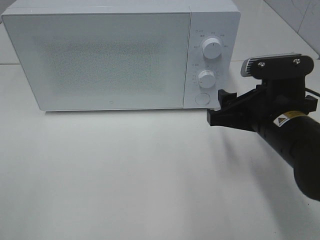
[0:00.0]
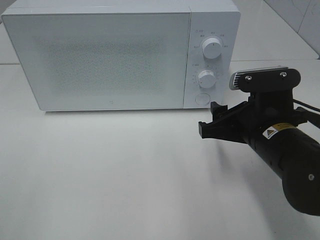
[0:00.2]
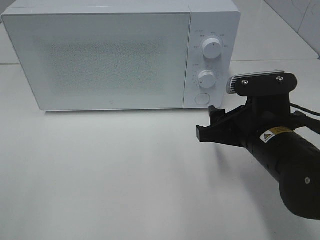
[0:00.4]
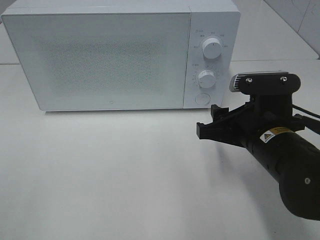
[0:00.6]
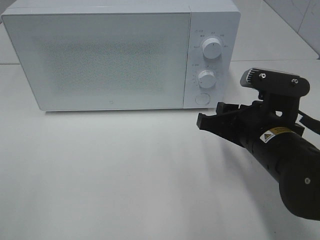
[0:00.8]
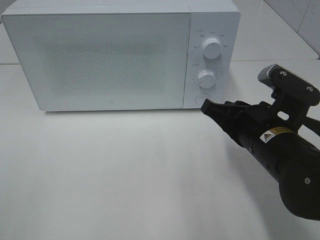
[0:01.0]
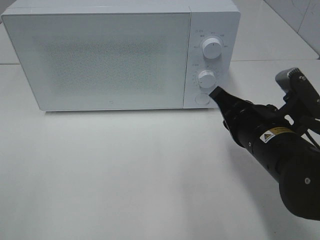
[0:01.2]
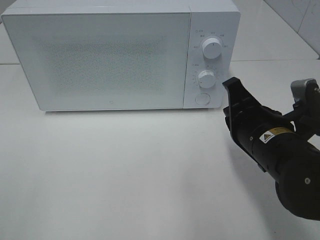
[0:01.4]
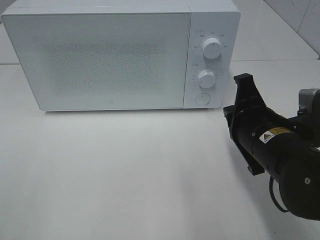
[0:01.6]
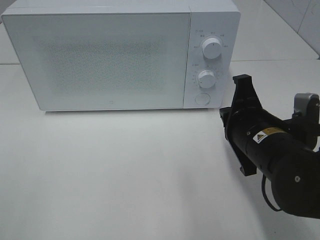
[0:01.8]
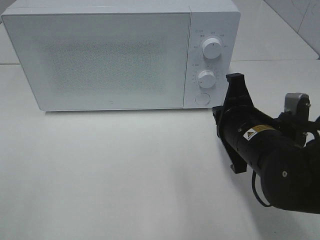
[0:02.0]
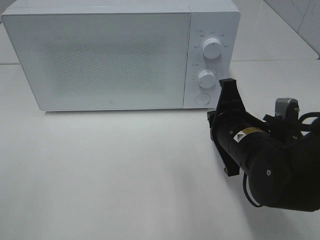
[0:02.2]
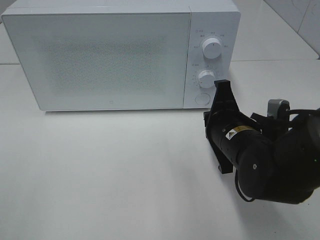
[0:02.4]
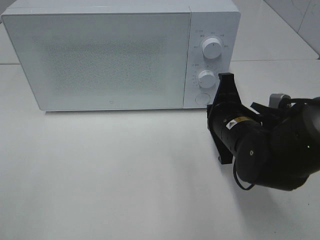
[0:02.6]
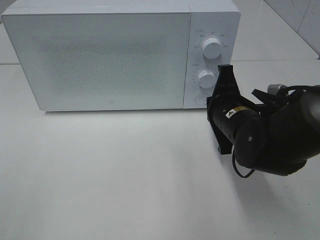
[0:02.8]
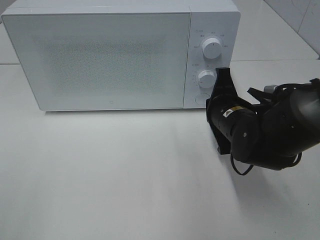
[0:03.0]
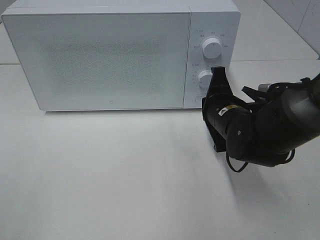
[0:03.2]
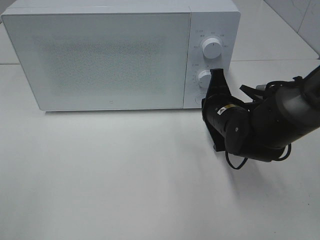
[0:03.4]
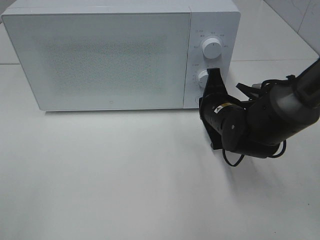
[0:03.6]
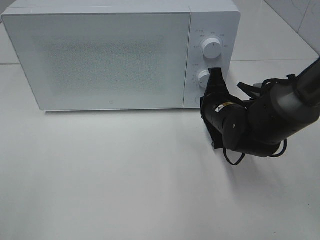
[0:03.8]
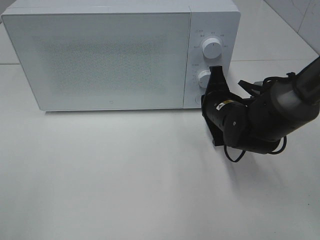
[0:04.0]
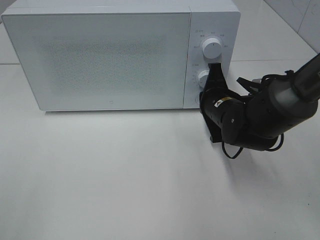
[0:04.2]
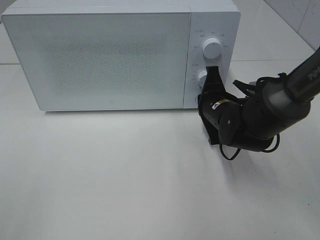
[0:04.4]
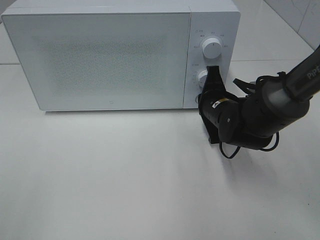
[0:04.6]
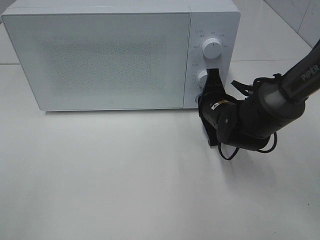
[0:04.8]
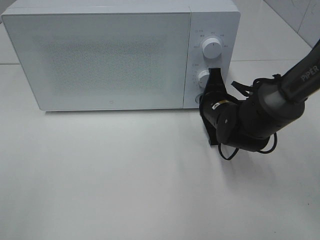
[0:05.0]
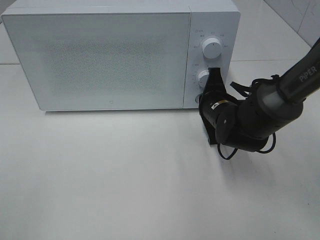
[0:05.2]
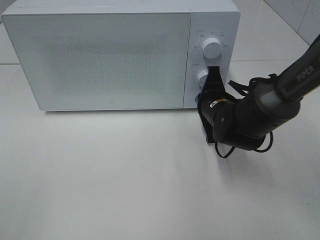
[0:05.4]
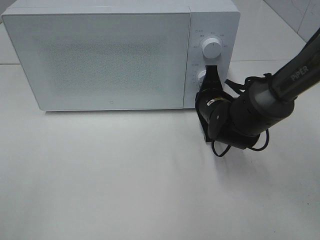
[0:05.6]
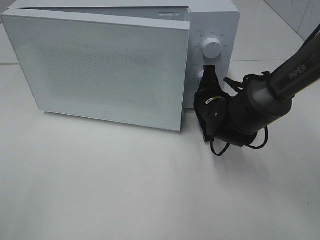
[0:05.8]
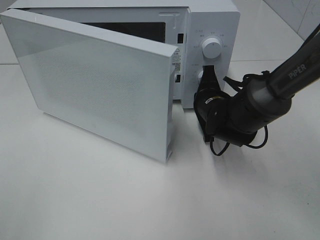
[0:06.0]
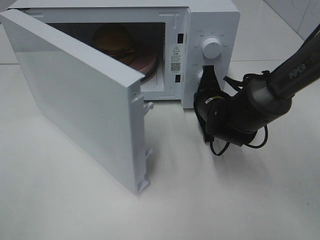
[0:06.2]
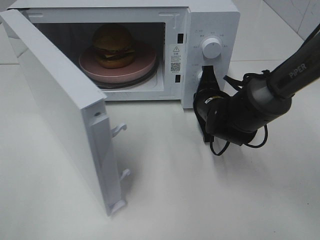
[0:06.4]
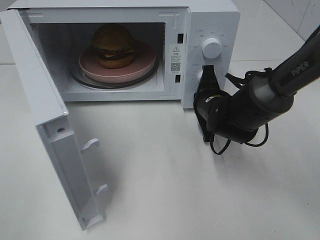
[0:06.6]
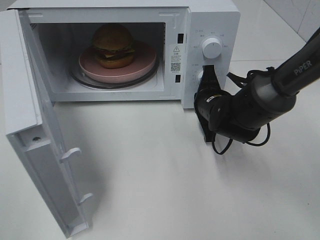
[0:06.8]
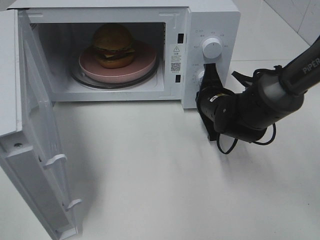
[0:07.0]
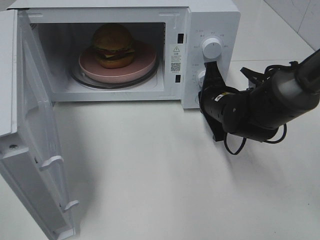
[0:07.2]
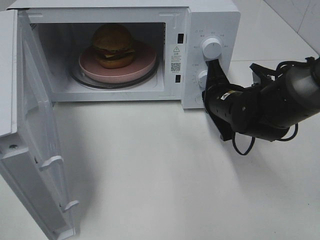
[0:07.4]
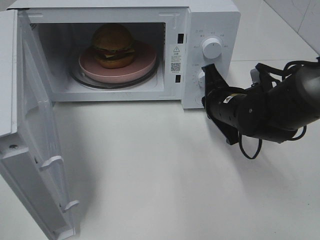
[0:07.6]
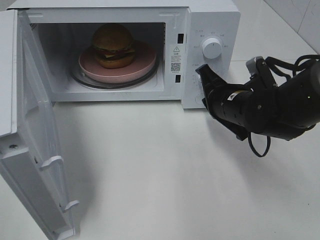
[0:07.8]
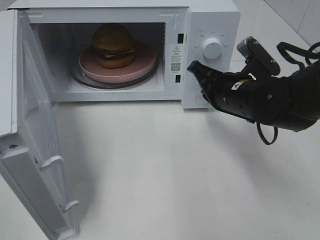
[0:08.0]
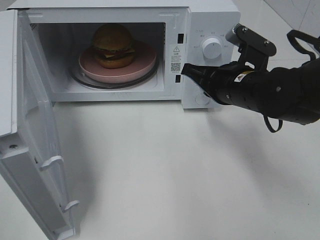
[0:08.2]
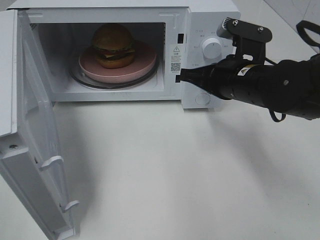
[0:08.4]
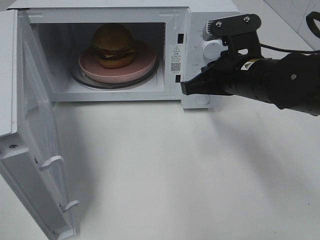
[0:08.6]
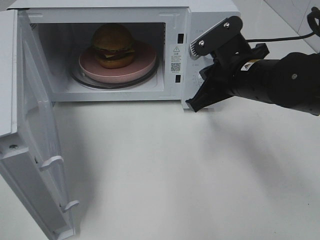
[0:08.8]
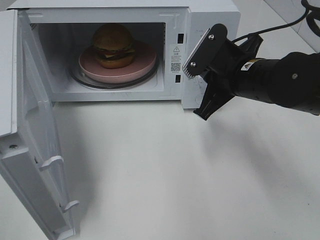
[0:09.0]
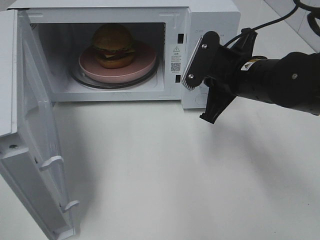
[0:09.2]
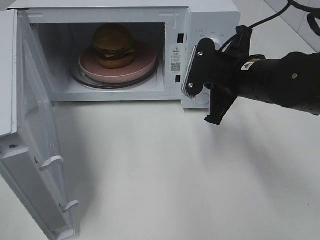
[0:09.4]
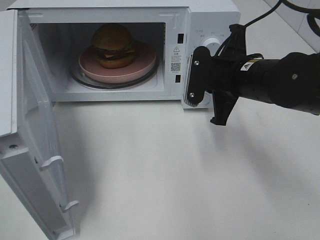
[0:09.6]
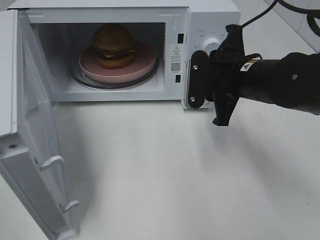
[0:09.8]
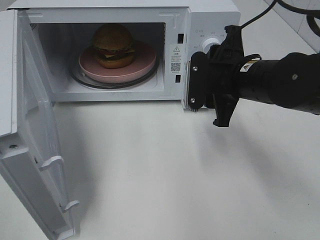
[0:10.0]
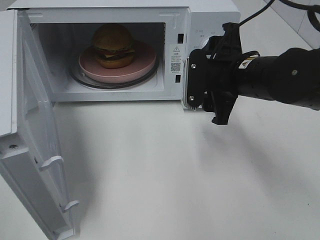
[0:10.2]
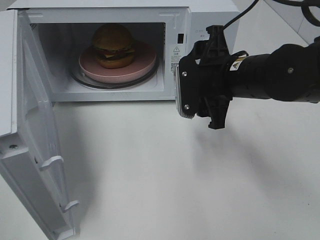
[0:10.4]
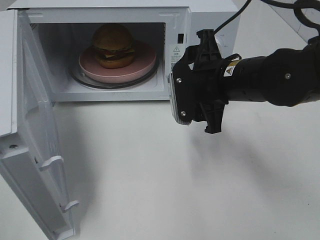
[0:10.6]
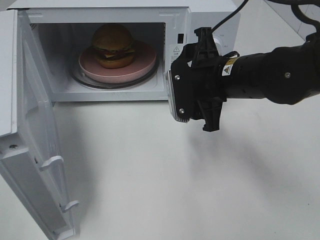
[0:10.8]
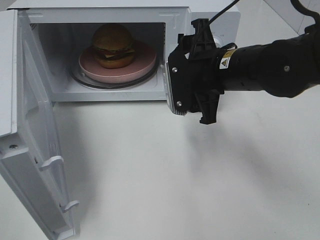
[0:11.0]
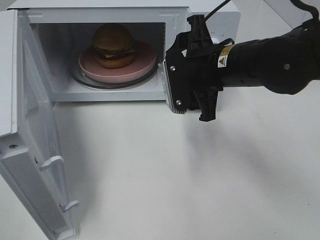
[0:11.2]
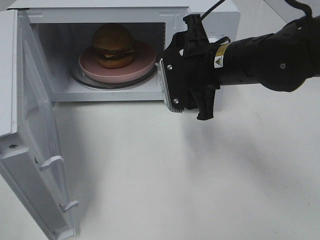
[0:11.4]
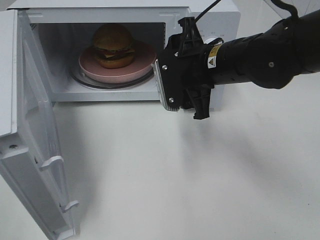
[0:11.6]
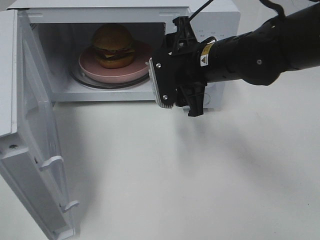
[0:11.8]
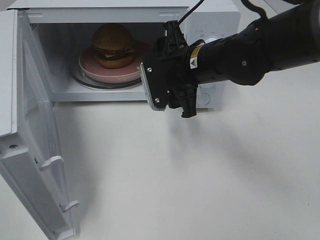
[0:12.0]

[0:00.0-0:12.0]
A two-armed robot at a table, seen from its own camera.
Task of the whole recording: Heat the burger.
Step, 0:00.0 to 0:07.4: Right hand: press the switch.
0:00.0 to 0:01.6: The right gripper closes.
0:01.6 to 0:03.0: The right gripper moves forward, about 10 cm.
0:03.0 to 0:04.4: The right gripper changes place by approximately 5 cm.
0:04.4 to 0:06.0: There are only small adjustments of the grippers.
0:06.0 to 0:07.6: The right gripper changes place by about 5 cm.
0:07.6 to 0:09.0: The right gripper travels upward by some 10 cm.
0:09.0 to 0:10.4: The right gripper opens its fingers.
0:10.4 to 0:12.0: The right gripper moves to the left, about 5 cm.

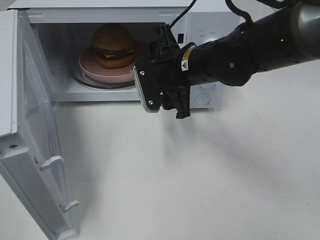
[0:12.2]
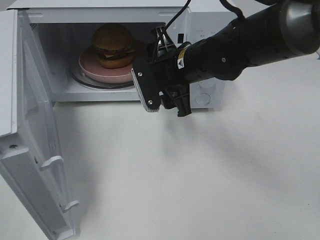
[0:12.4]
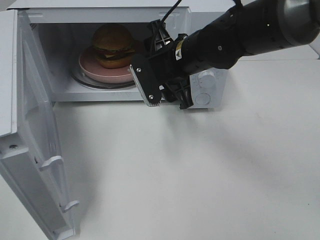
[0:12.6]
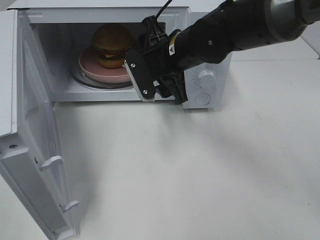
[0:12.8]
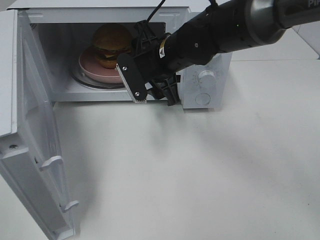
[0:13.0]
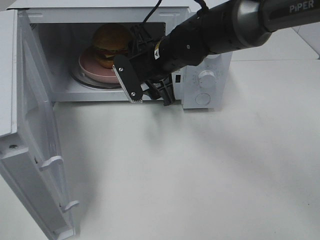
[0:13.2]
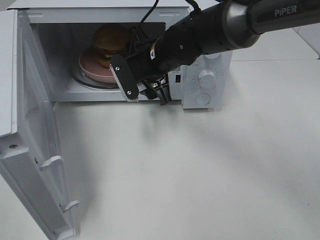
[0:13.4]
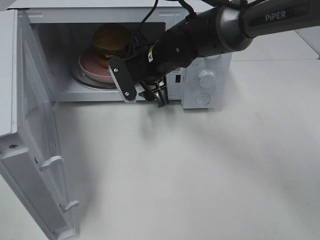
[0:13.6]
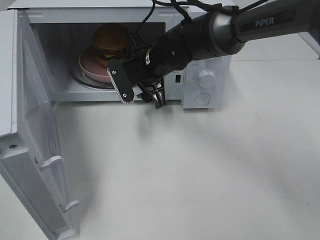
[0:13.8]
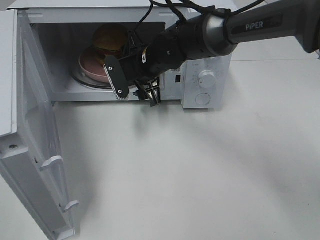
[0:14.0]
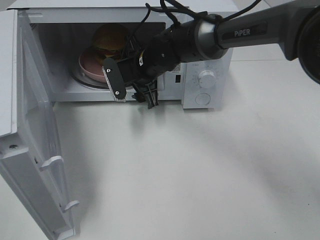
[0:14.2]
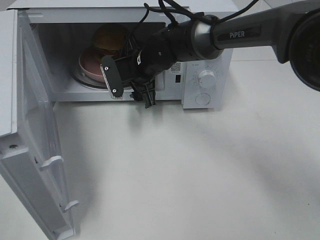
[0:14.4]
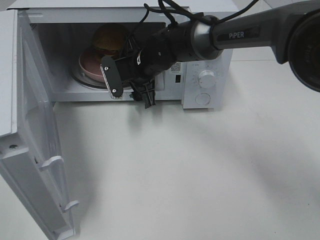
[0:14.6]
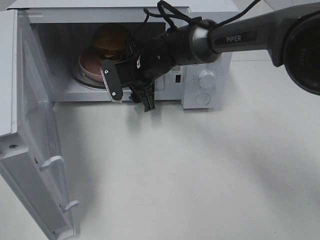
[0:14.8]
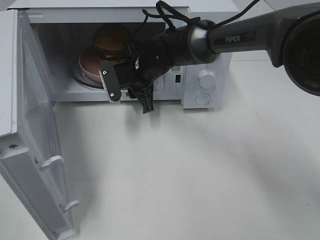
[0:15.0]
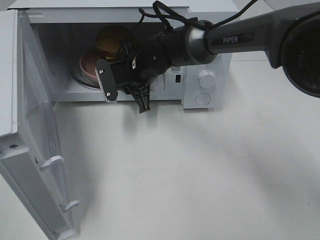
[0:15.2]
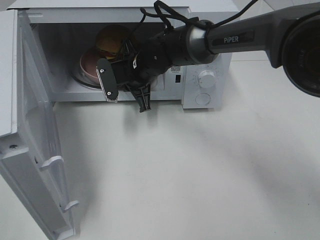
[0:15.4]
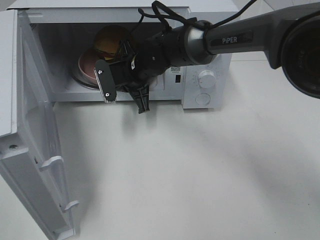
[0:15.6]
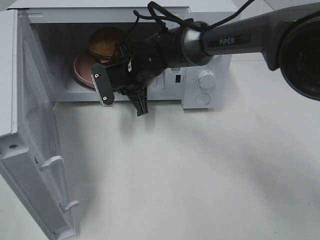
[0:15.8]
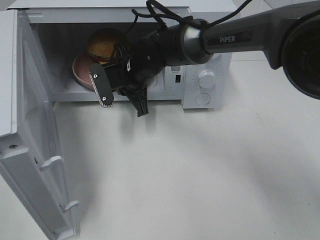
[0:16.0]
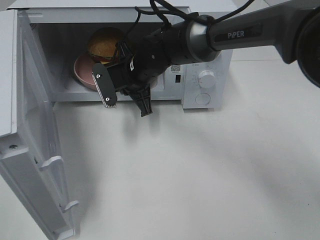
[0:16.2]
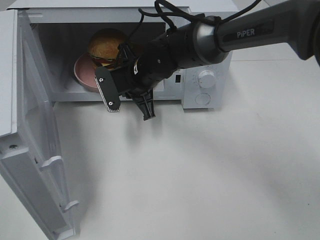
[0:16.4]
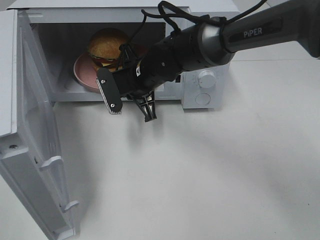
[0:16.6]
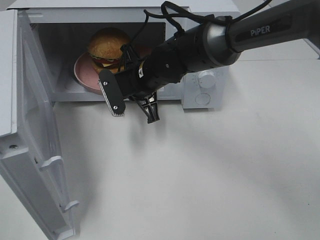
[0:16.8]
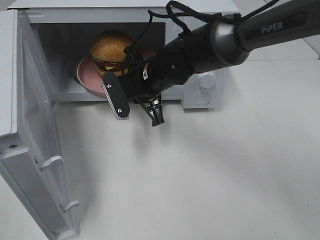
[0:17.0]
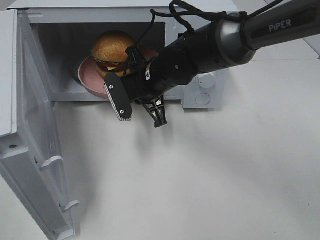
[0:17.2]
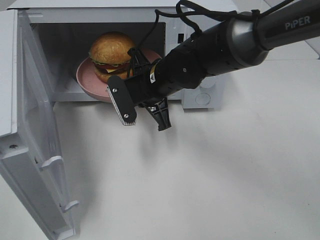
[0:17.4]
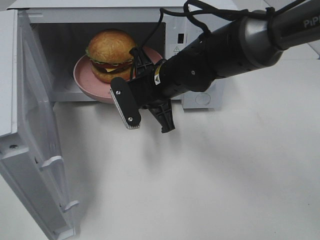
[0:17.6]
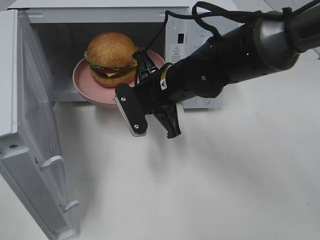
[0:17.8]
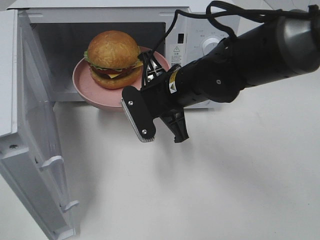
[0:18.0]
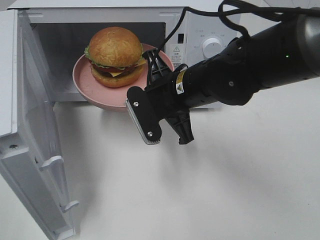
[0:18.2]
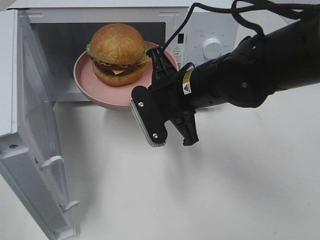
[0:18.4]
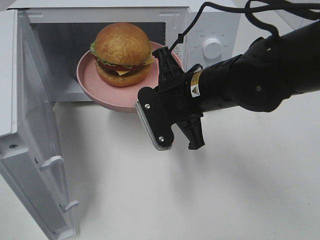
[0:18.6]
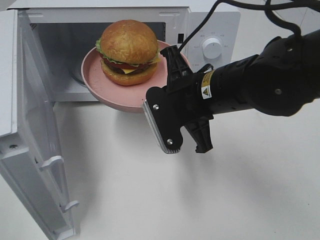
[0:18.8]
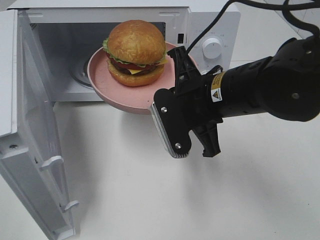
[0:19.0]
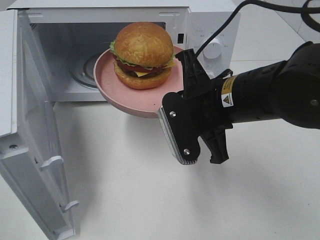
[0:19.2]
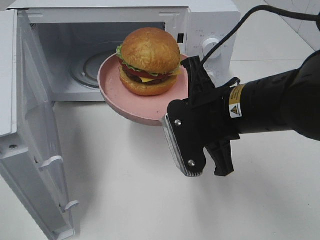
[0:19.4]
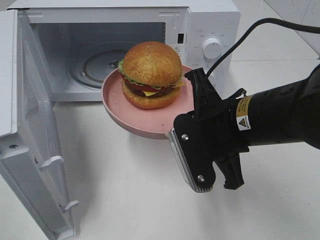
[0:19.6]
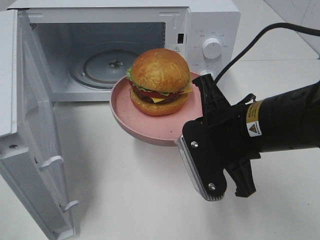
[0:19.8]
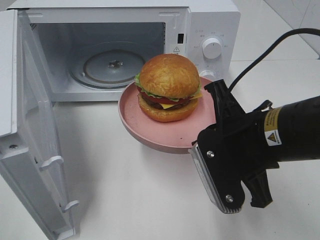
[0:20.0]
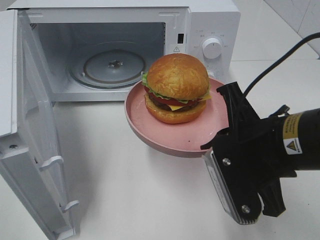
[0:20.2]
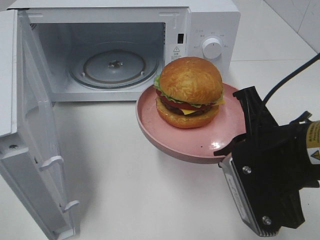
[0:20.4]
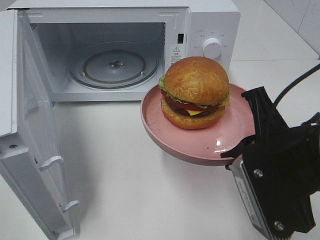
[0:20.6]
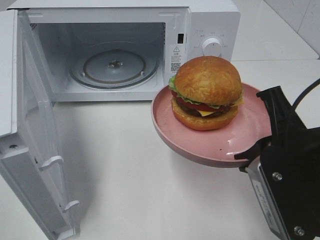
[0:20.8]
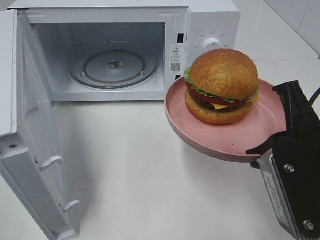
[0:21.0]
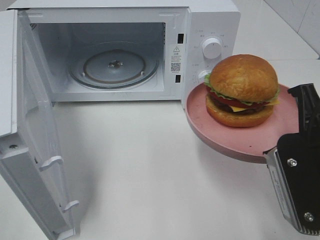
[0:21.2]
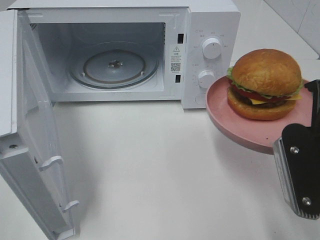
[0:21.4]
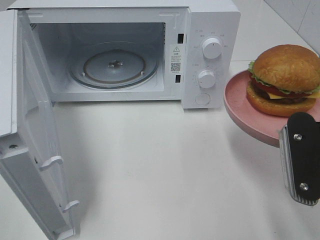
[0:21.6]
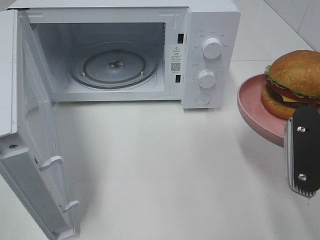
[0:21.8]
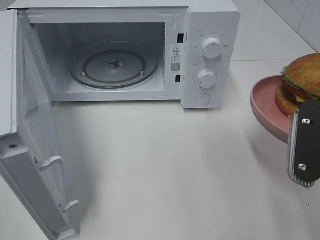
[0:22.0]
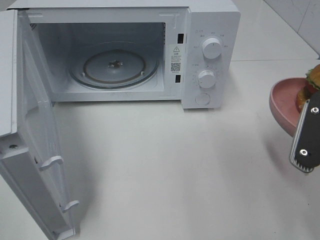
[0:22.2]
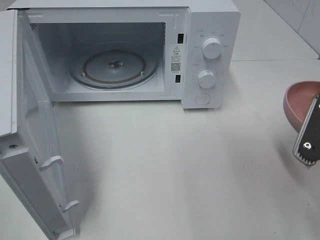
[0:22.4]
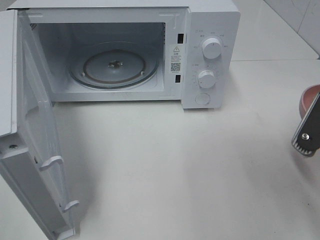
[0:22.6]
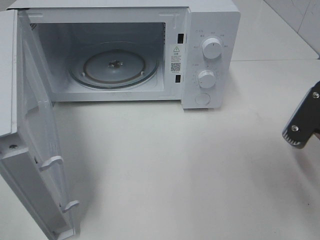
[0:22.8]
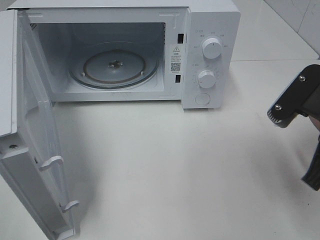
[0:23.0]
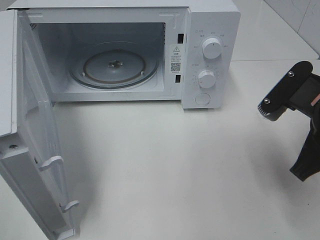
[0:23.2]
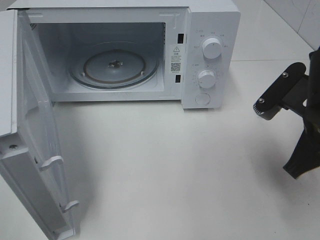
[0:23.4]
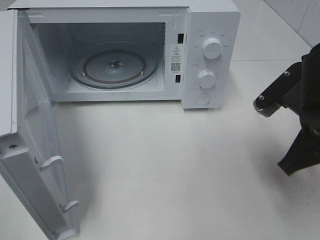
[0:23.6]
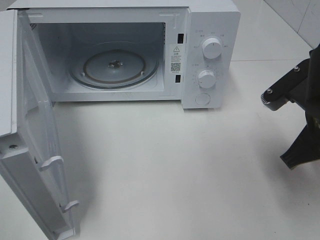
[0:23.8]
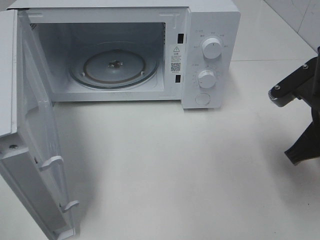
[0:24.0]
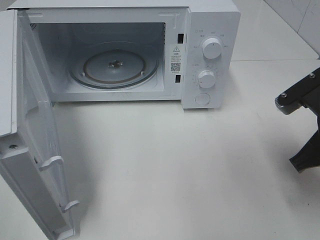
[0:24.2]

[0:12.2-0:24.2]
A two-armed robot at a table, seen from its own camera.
Task of the whole recording: Heat the burger.
Step, 0:12.2 to 0:15.4: Right hand: grab the plate with the hamburger.
0:12.2 to 0:13.8: The right gripper is displaced forward and to the left by about 10 cm.
0:13.8 to 0:15.2: The right gripper closes up.
0:15.2 to 0:16.6: There are only small adjustments of the grippers.
0:16.6 to 0:18.2: The right gripper heads backward and to the right, covering roughly 10 cm.
0:18.2 to 0:19.8: The right gripper travels backward and to the right by roughly 10 cm.
0:19.8 to 0:21.2: The right gripper moves to the right and backward, approximately 10 cm.
0:22.6 to 0:24.2: The right gripper heads forward, covering approximately 5 cm.
